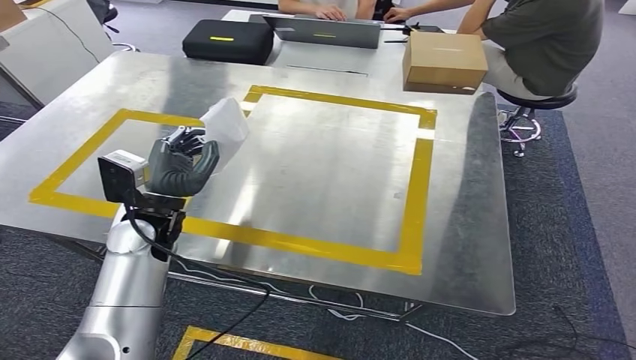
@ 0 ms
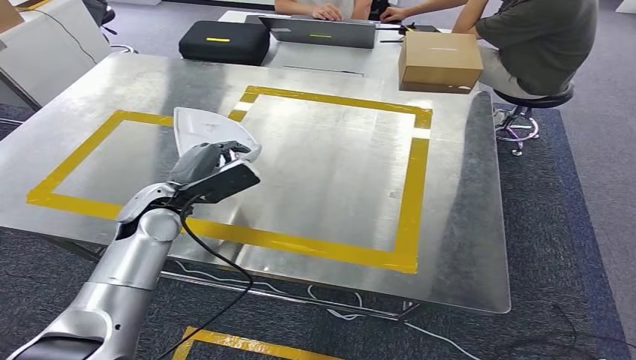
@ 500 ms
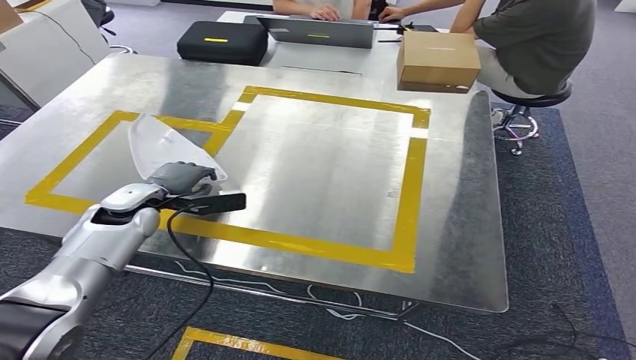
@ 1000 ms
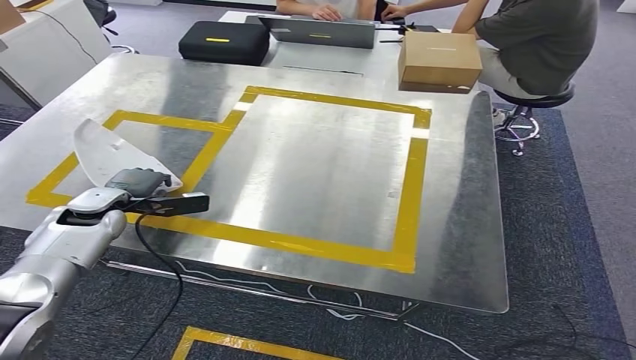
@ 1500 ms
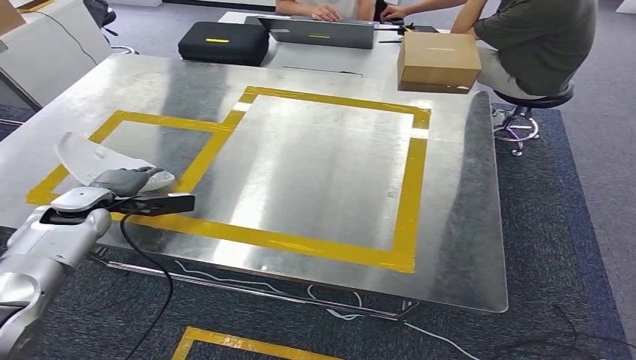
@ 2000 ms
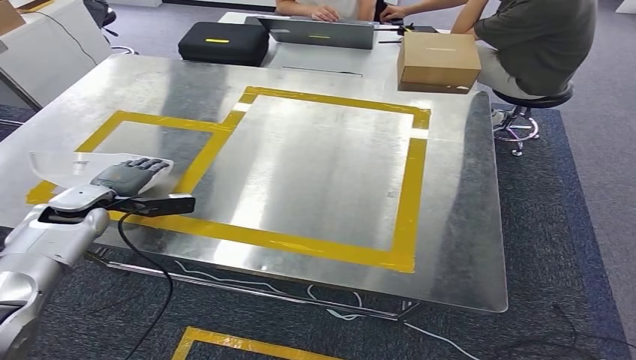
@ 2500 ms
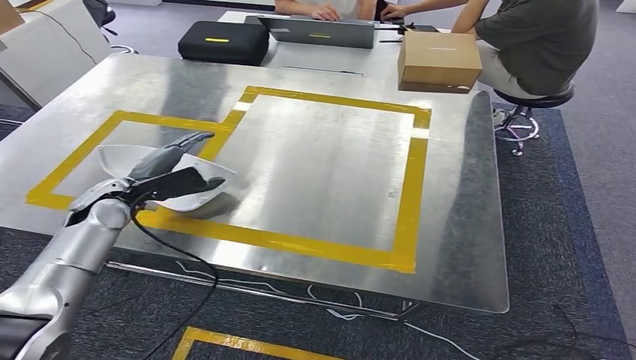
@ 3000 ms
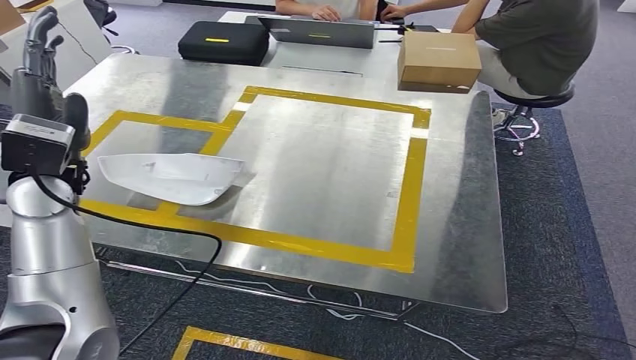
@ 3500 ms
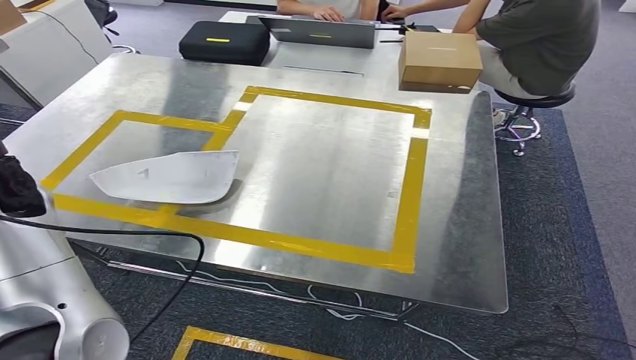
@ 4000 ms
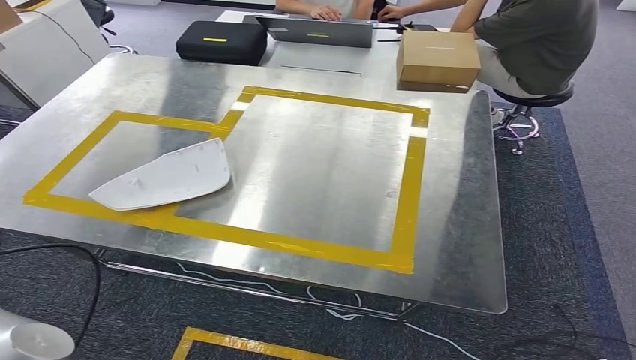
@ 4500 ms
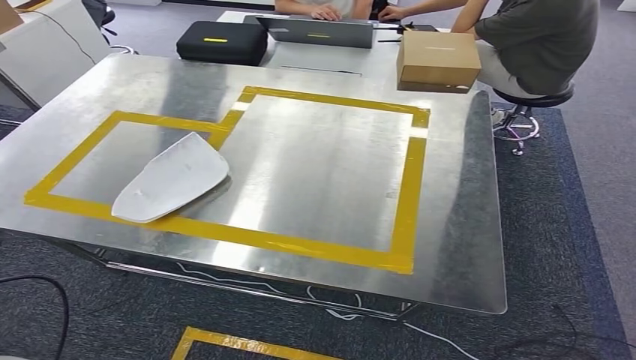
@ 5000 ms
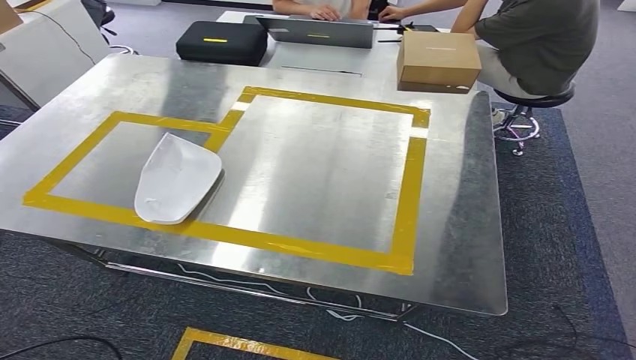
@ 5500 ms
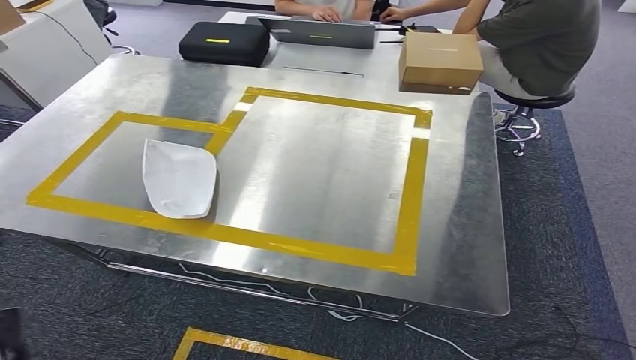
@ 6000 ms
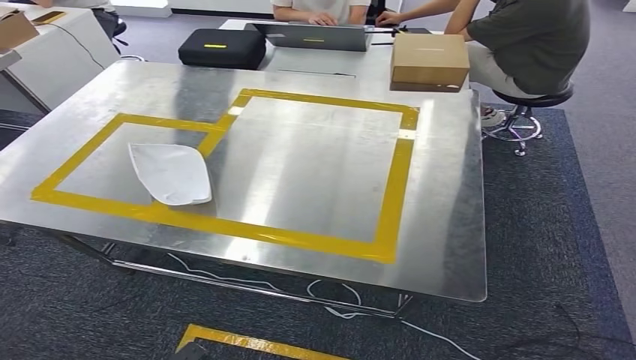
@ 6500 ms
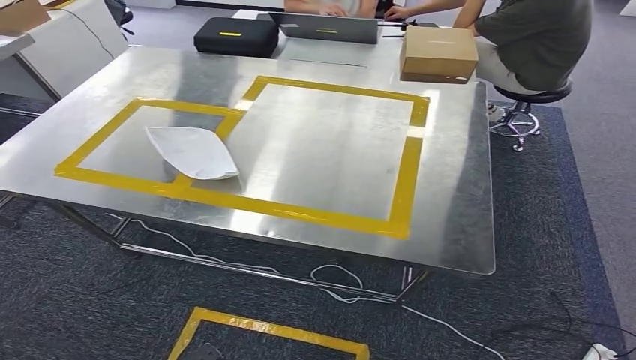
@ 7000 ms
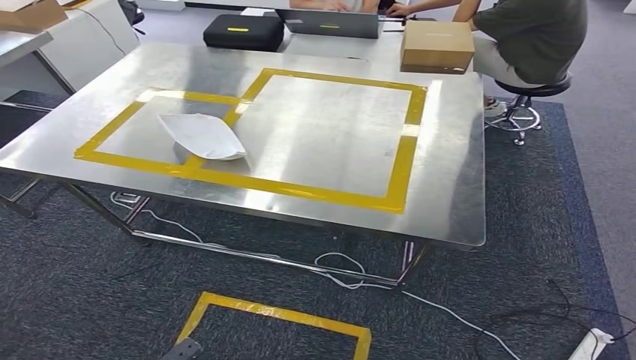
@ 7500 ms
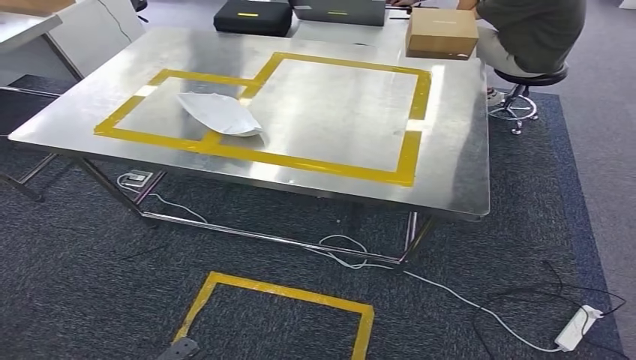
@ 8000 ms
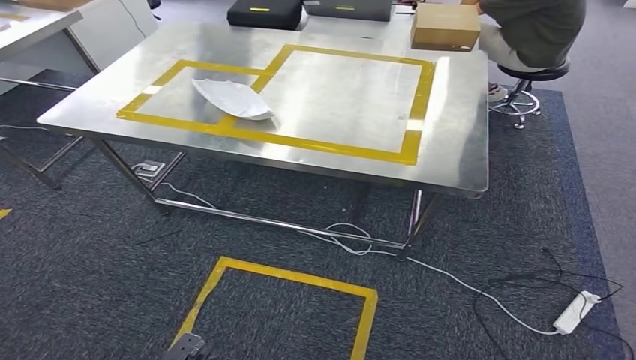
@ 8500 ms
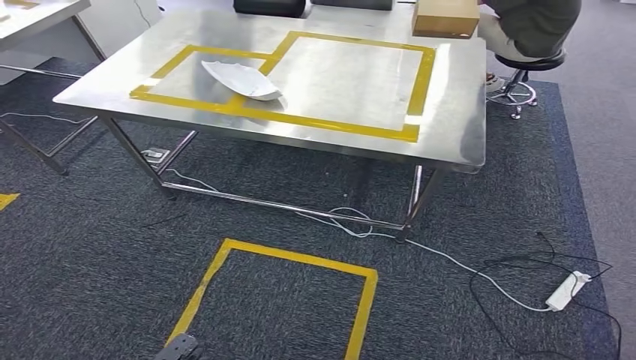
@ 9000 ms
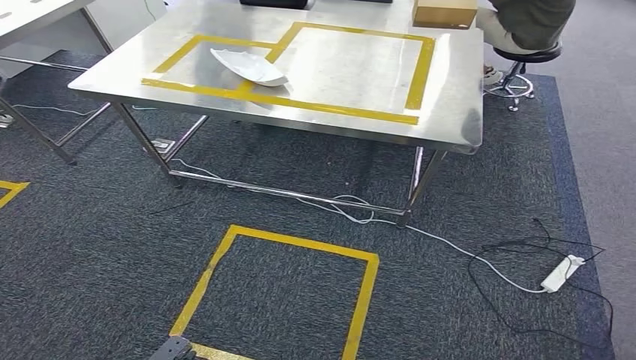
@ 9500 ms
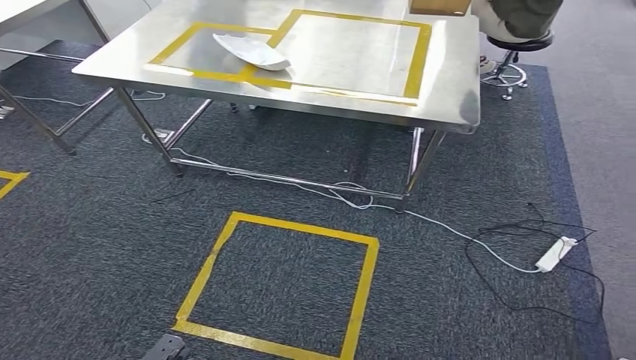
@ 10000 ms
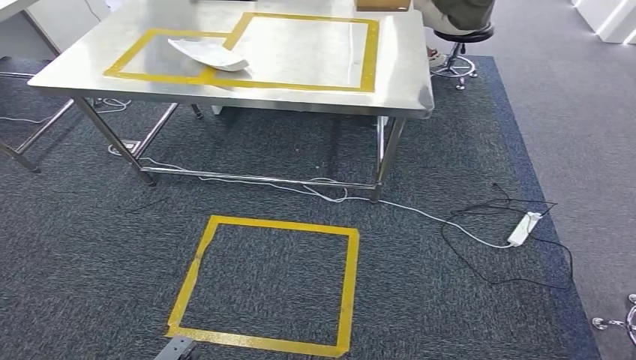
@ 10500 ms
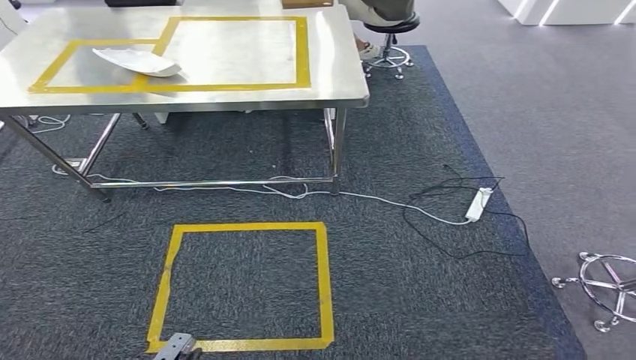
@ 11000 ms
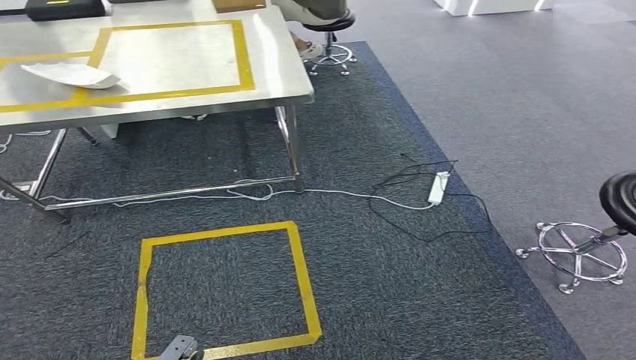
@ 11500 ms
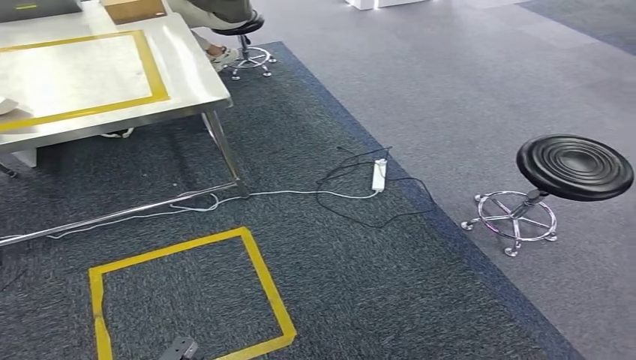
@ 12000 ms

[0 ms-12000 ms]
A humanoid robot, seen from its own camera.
Step, 0 ms to 5500 ms: Insert the small component into the corresponding slot on the workbench.
2000 ms to 4000 ms: The left hand moves upward, some 20 cm.
4000 ms to 6000 ms: The left hand goes about 40 cm downward and backward.

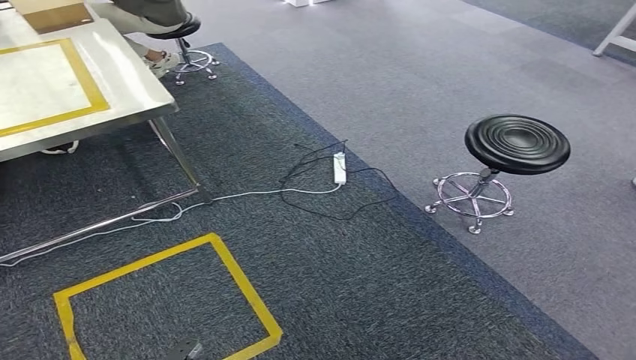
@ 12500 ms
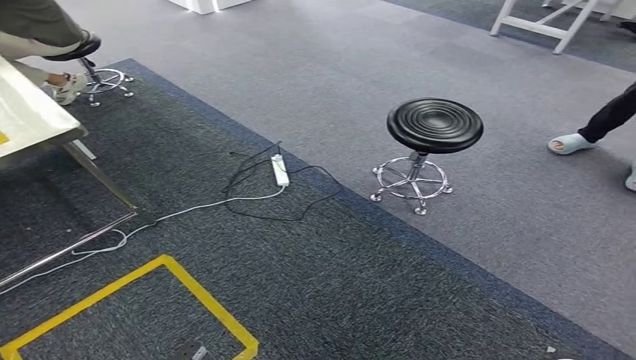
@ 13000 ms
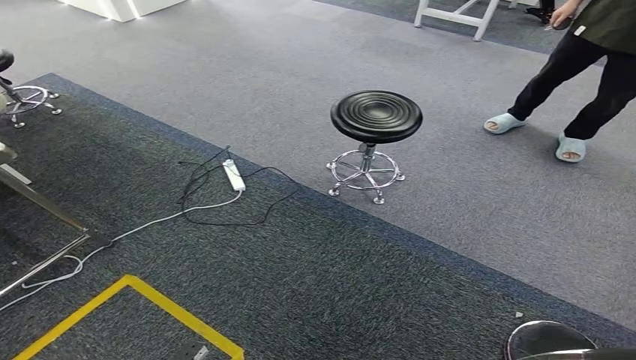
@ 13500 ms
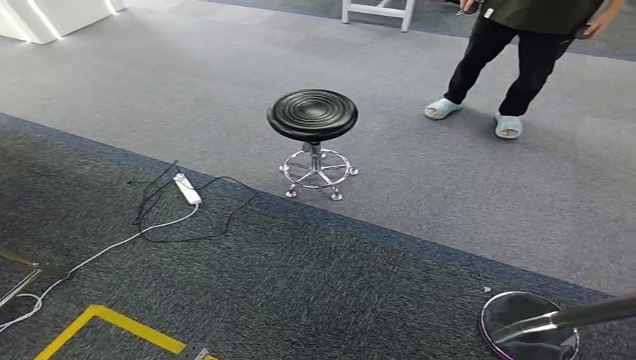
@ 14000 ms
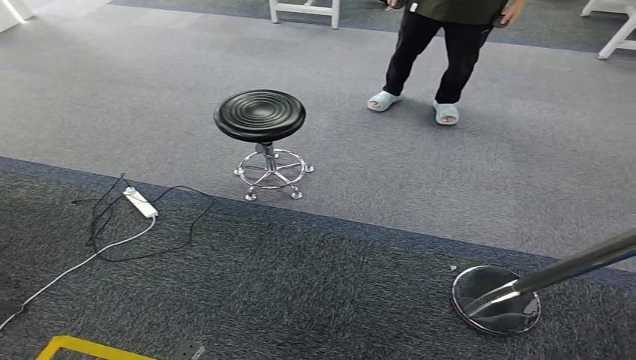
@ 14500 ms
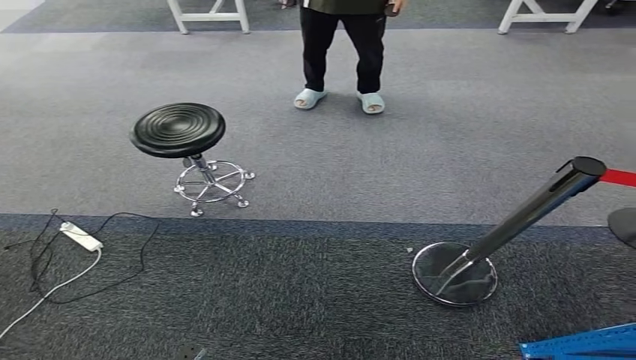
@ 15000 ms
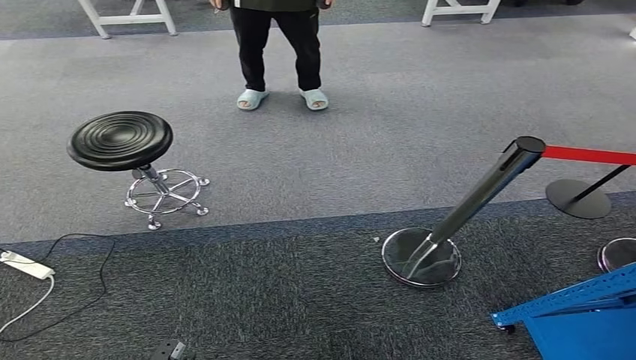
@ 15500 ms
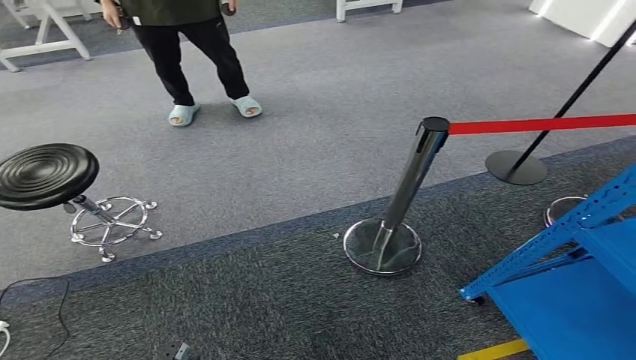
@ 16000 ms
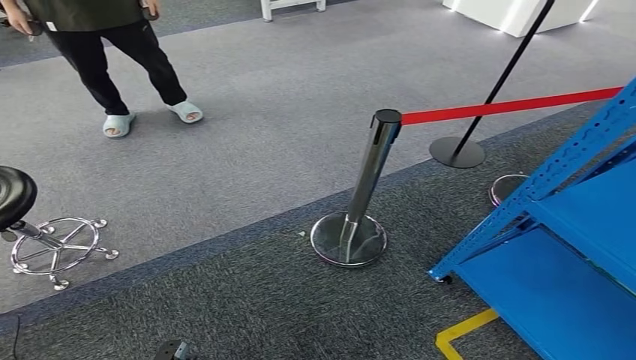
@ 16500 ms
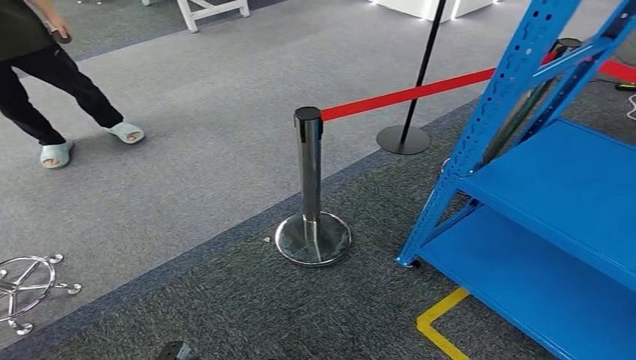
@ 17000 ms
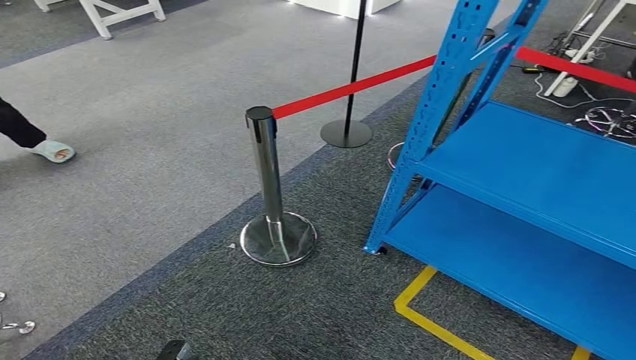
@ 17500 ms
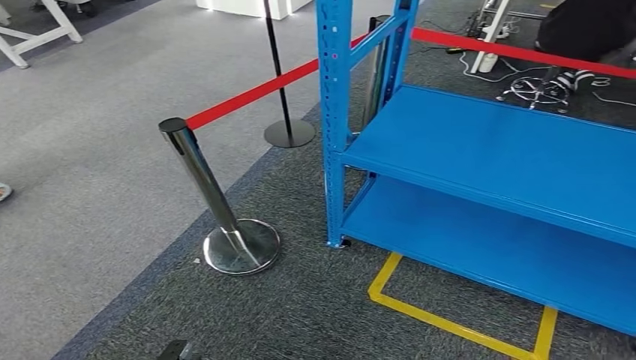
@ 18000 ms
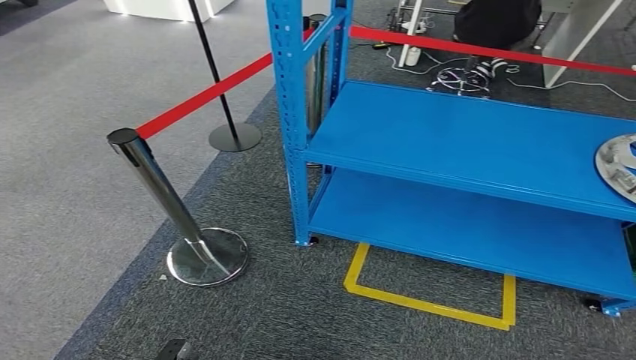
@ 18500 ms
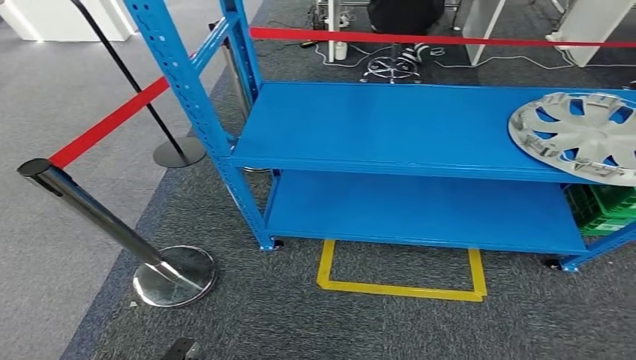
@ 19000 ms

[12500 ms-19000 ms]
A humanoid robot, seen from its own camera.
Step, 12500 ms to 19000 ms: Move to the initial position of the workbench.
